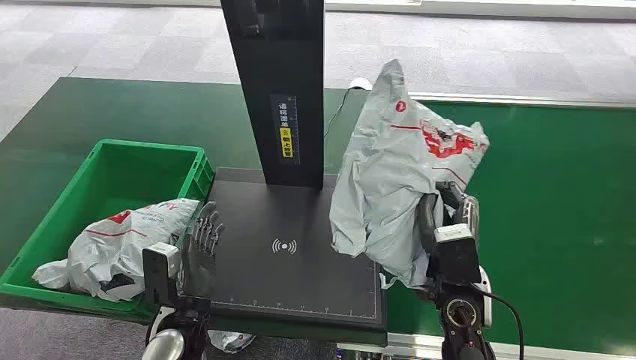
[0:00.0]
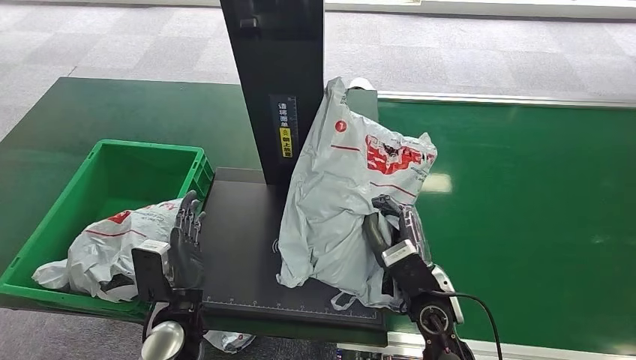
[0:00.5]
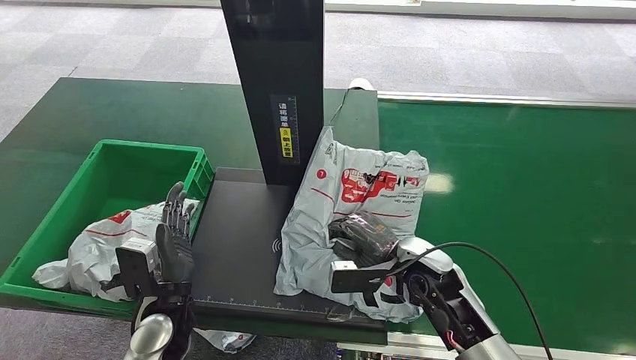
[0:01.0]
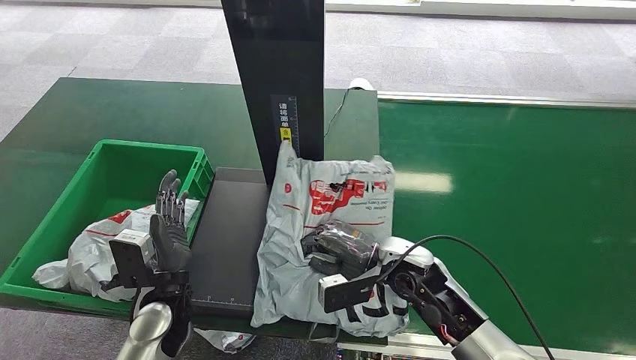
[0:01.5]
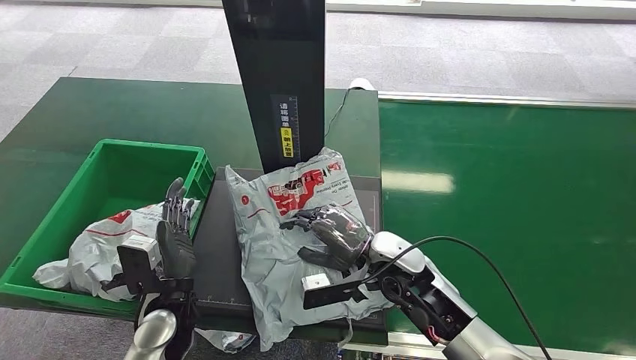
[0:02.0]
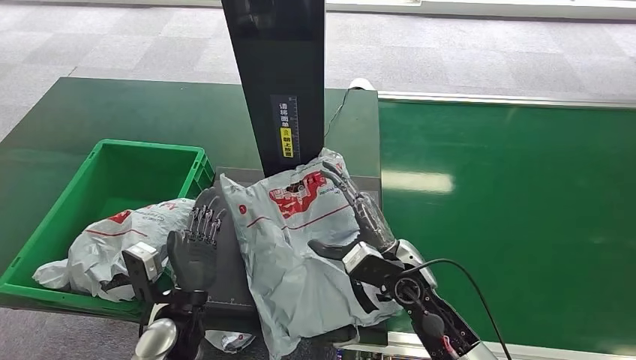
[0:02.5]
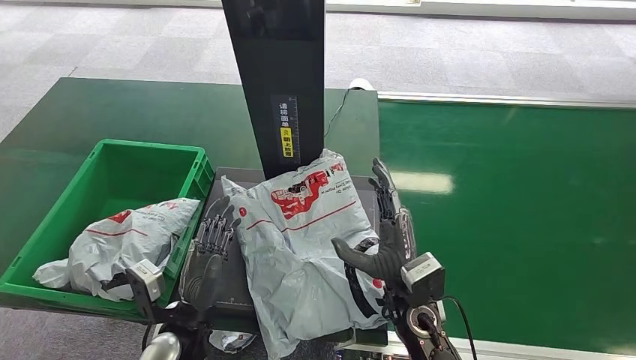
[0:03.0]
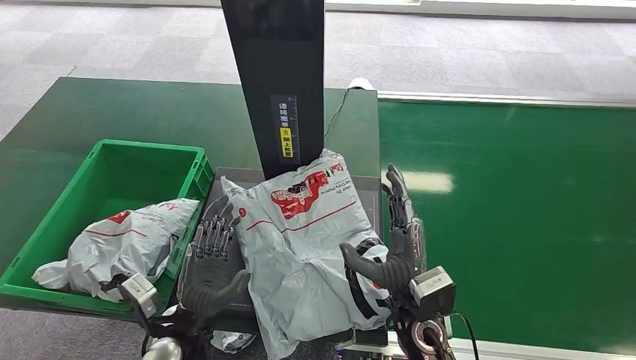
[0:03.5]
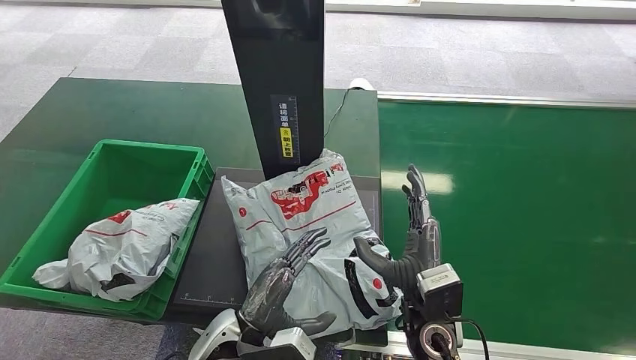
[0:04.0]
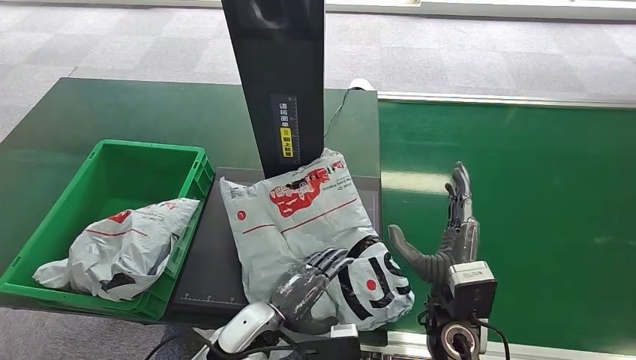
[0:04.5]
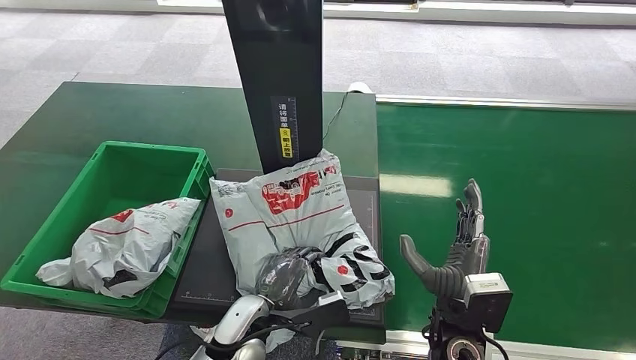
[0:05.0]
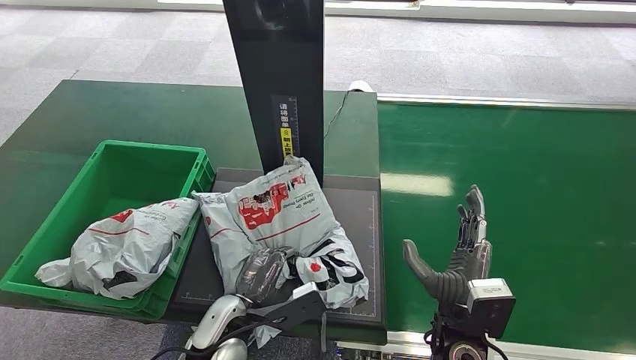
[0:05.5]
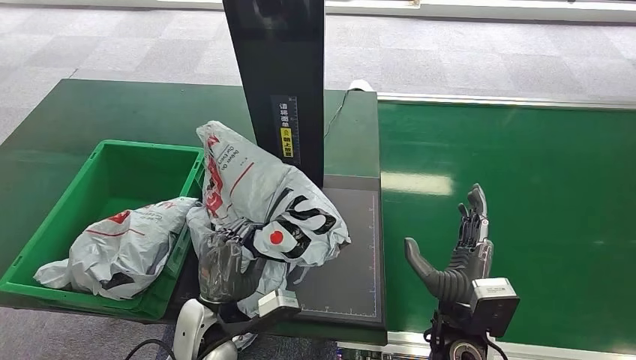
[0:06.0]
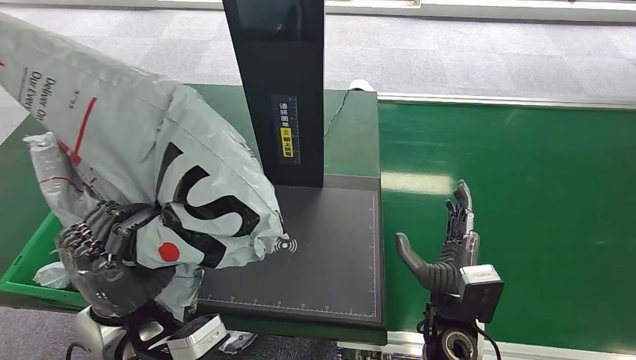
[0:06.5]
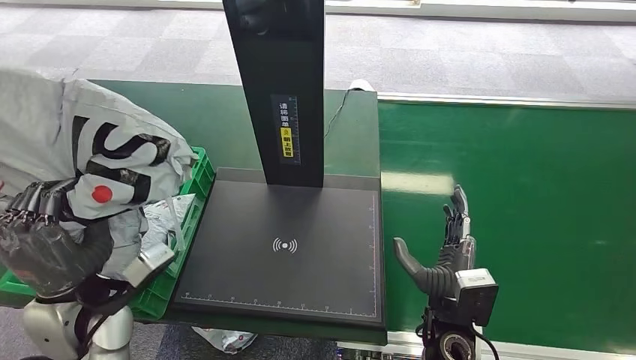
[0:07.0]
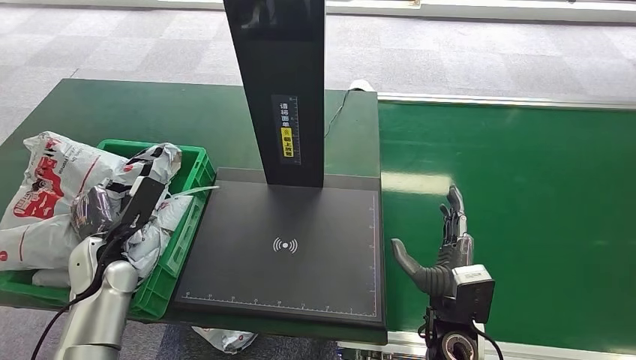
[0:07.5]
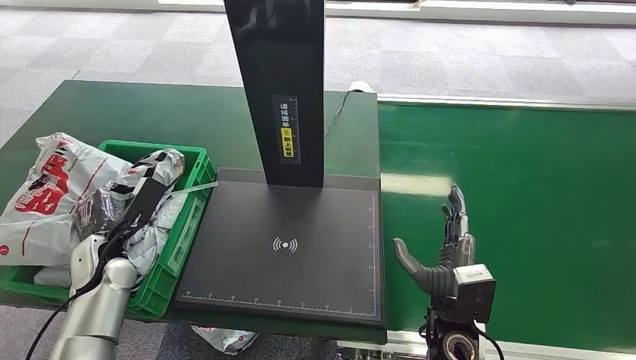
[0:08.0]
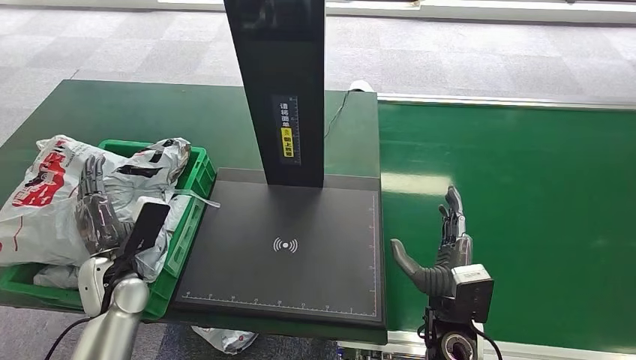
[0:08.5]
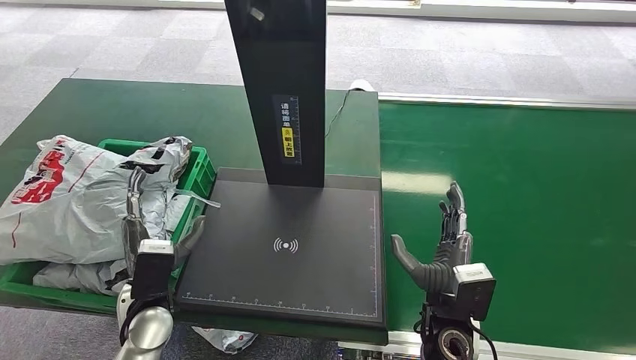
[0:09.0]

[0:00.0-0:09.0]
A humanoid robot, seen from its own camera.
0:02.0 to 0:04.5: The left hand heads to the right, covering about 15 cm, while the right hand travels backward and to the right by some 10 cm.
0:07.0 to 0:09.0: The left hand shifts roughly 10 cm downward, and reaches approximately 10 cm to the left, then returns.

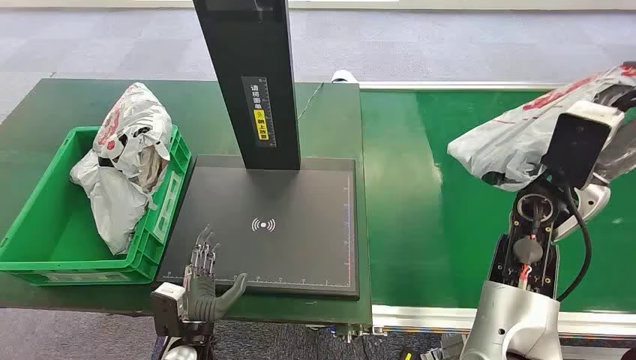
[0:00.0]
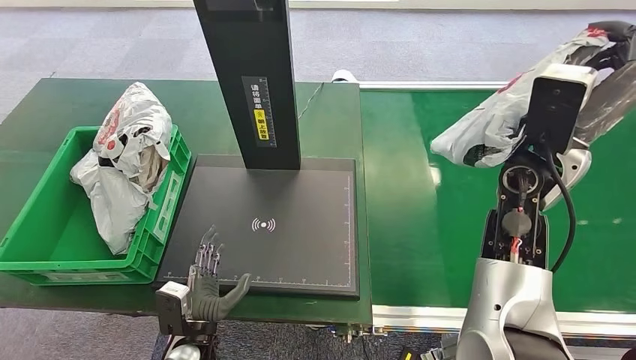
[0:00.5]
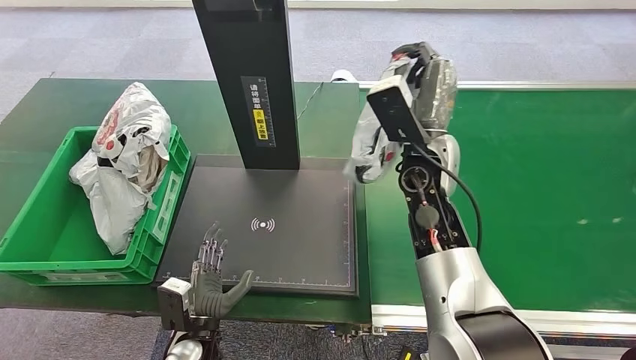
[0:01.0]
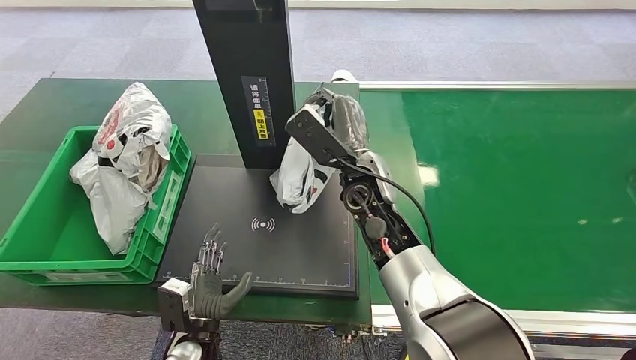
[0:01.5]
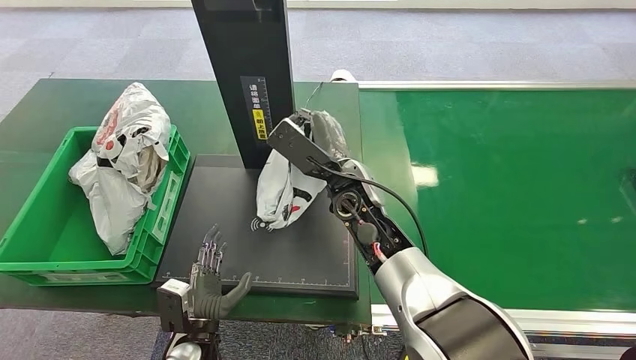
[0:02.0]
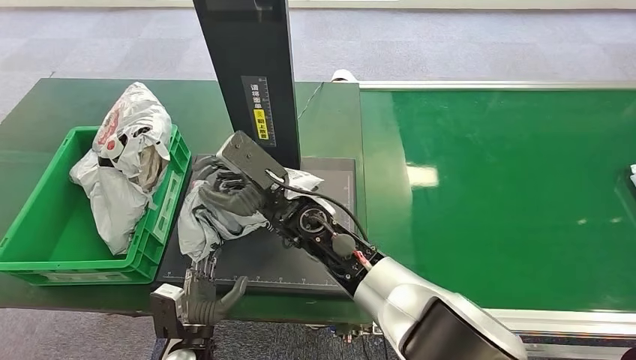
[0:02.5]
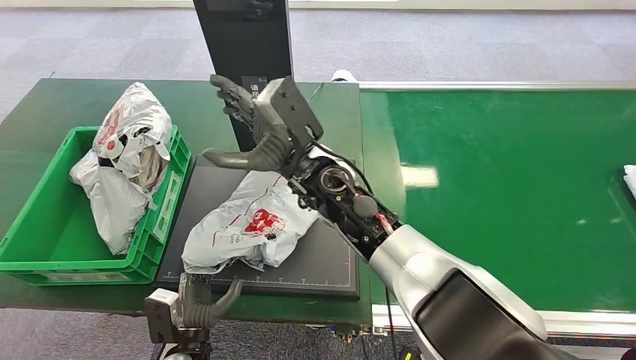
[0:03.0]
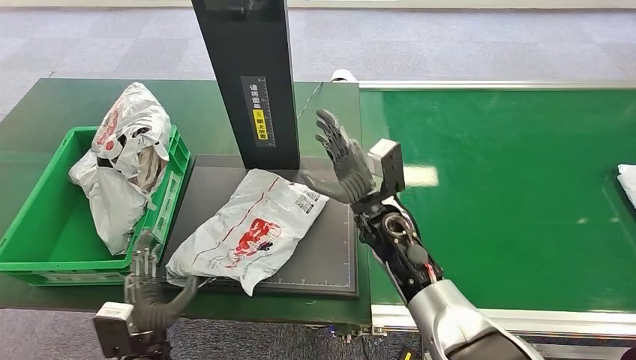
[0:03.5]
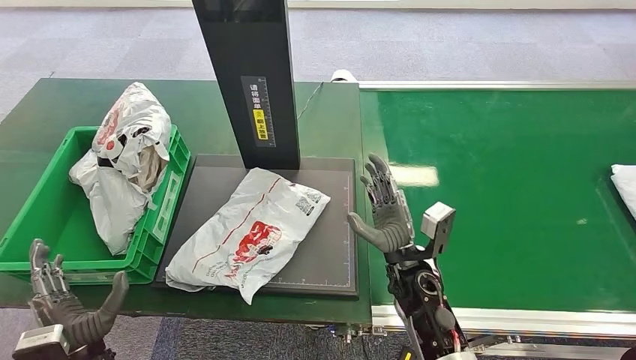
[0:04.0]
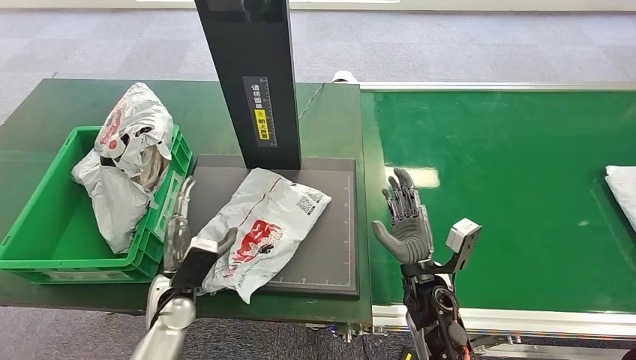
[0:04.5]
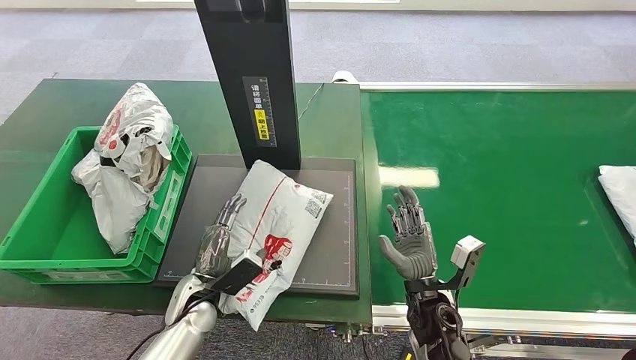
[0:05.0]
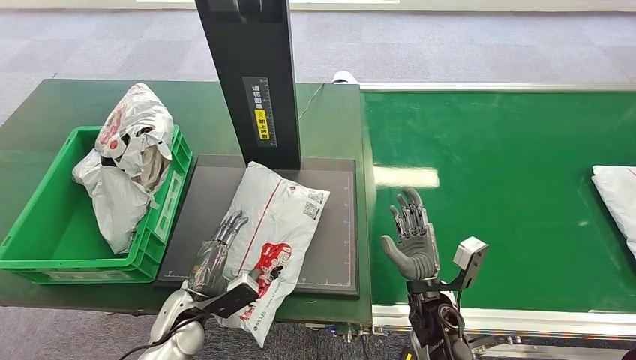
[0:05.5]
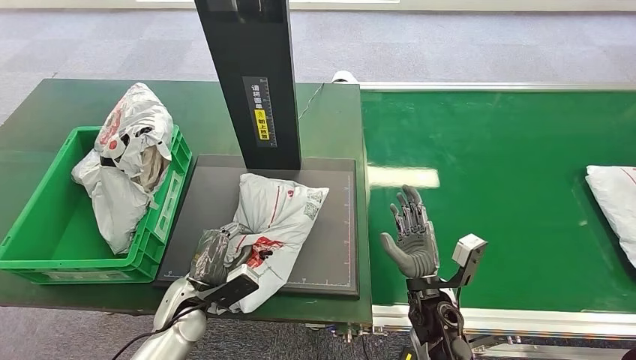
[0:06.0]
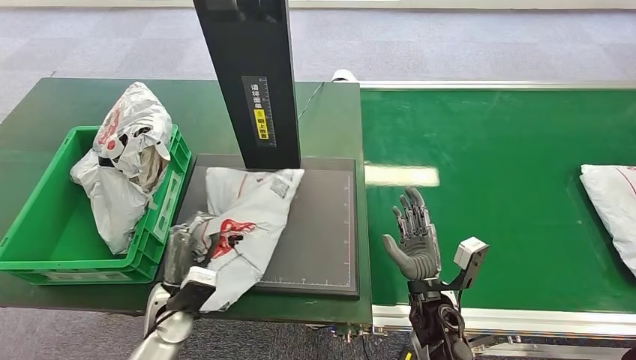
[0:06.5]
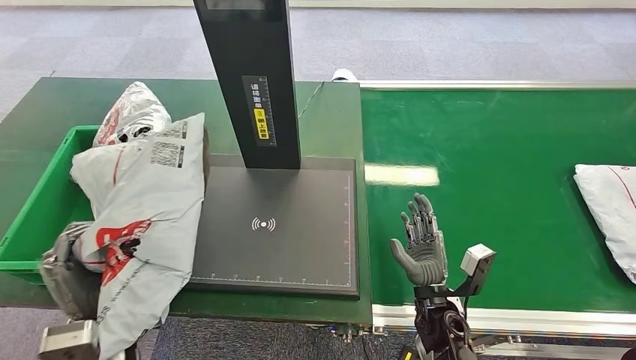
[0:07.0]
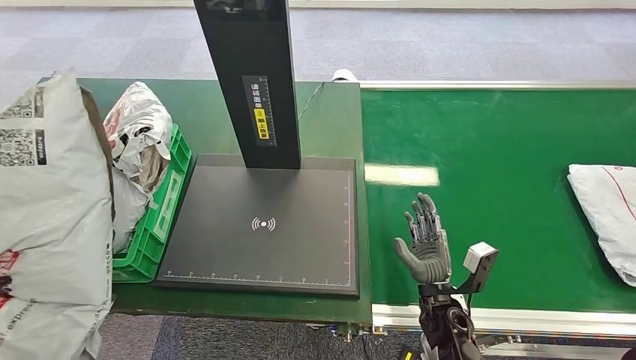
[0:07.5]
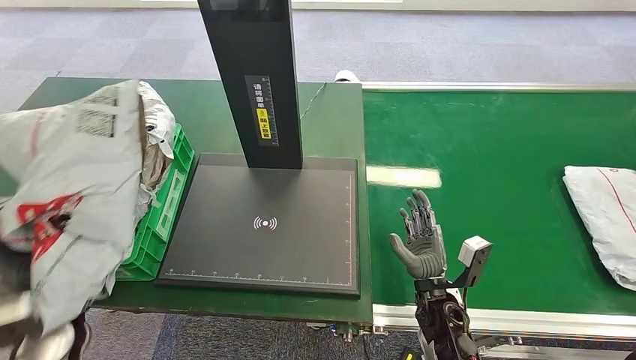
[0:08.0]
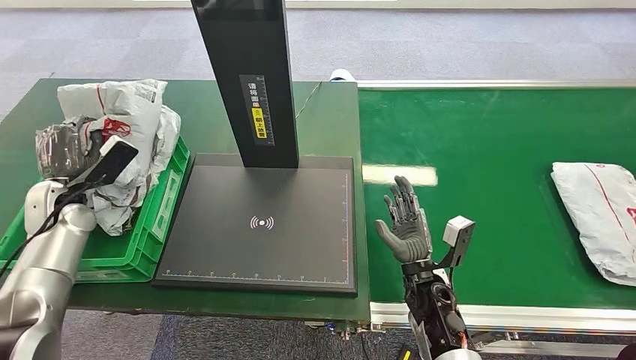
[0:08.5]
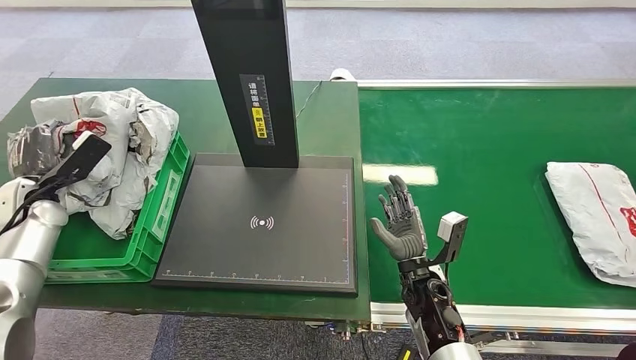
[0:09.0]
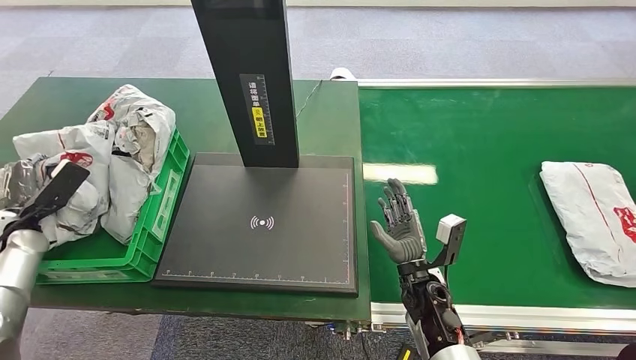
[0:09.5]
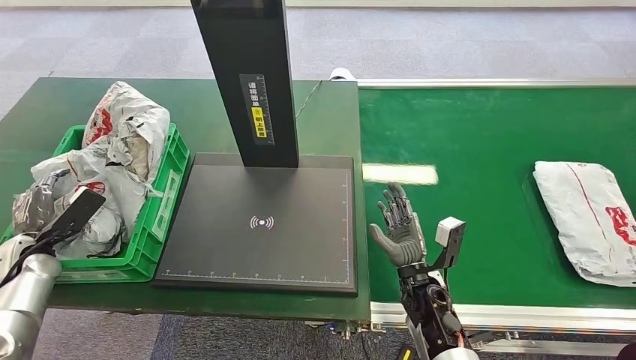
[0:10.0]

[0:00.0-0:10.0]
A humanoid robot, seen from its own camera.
0:04.0 to 0:06.0: The left hand is displaced forward and to the right by some 15 cm, while the right hand goes roughly 10 cm backward and downward.
